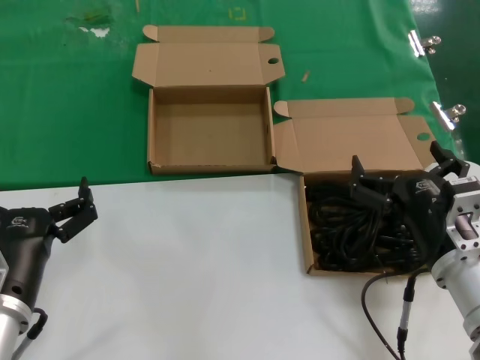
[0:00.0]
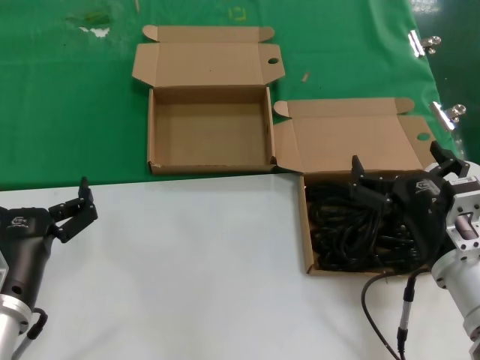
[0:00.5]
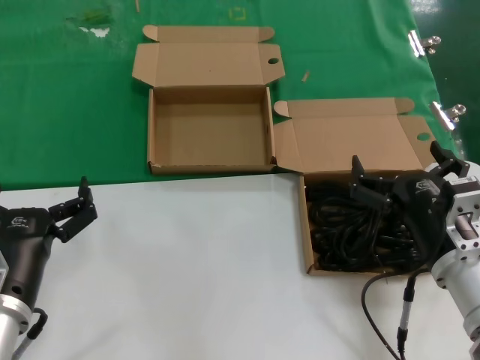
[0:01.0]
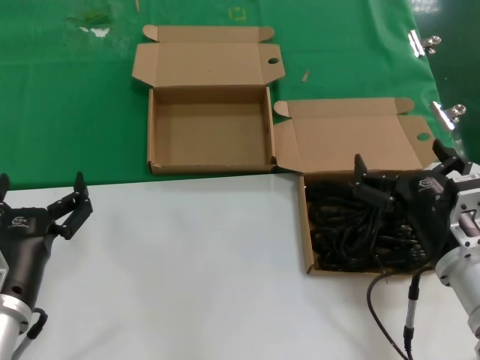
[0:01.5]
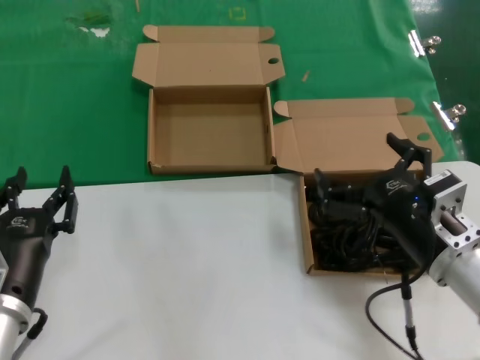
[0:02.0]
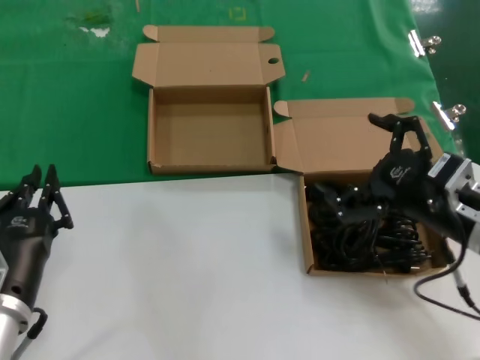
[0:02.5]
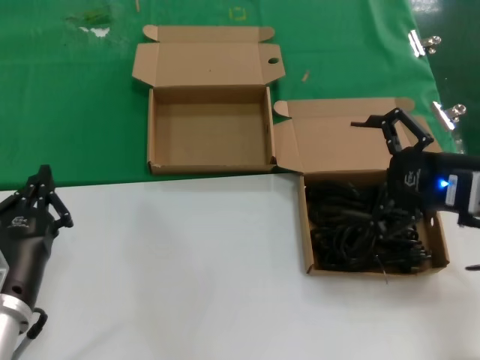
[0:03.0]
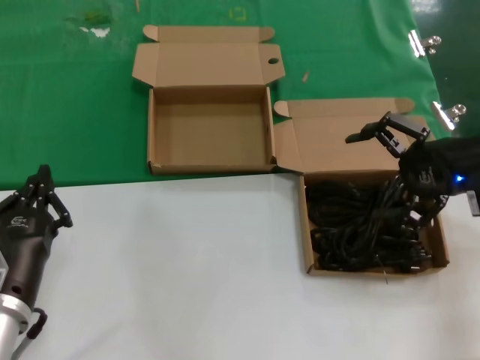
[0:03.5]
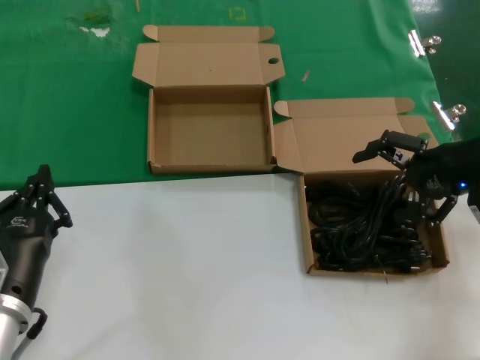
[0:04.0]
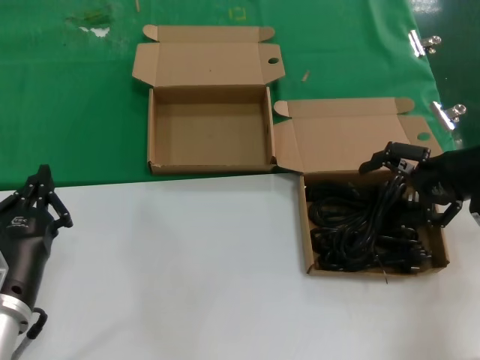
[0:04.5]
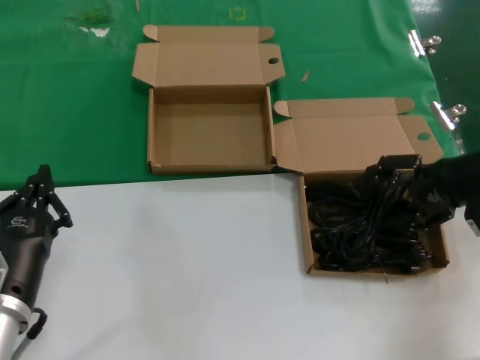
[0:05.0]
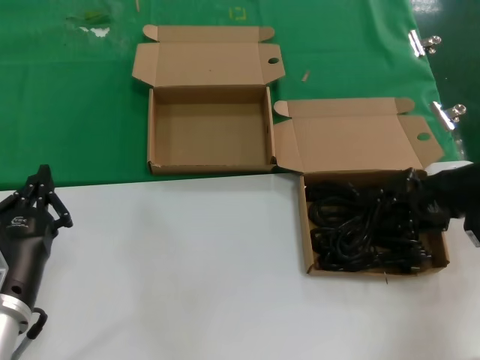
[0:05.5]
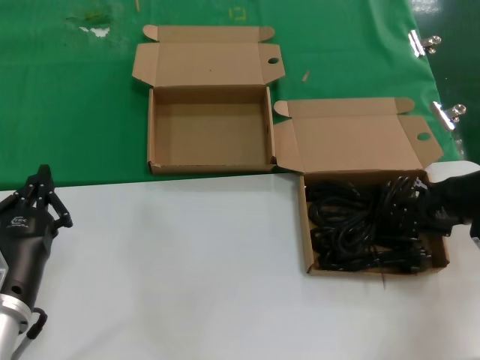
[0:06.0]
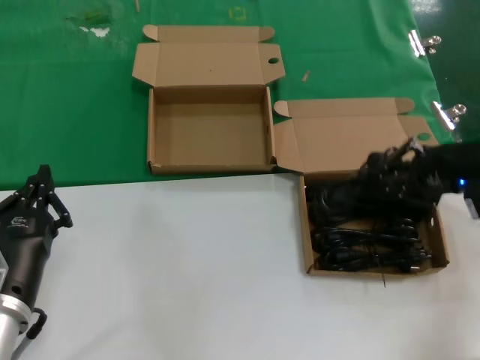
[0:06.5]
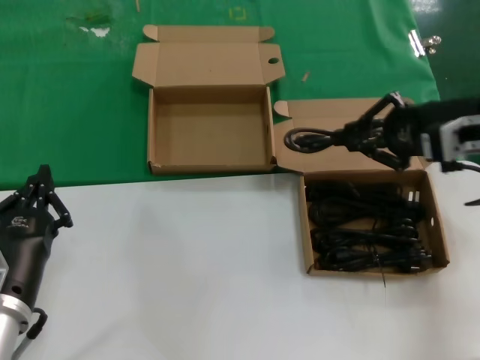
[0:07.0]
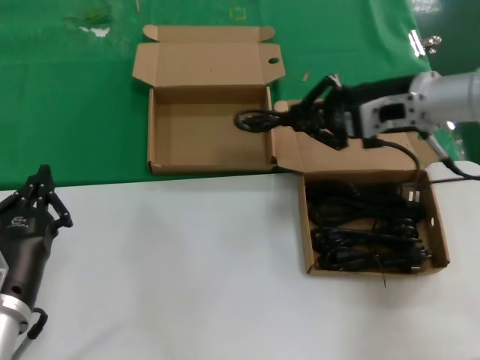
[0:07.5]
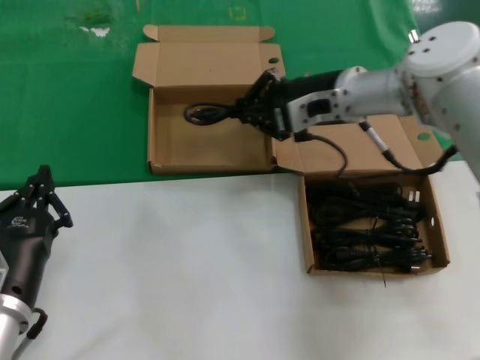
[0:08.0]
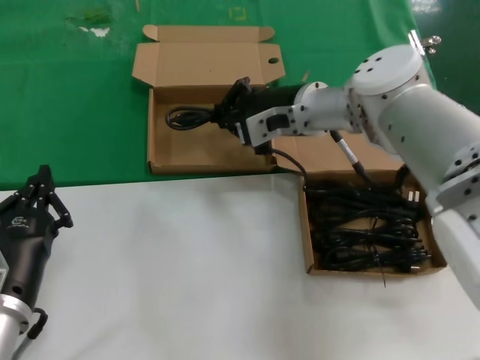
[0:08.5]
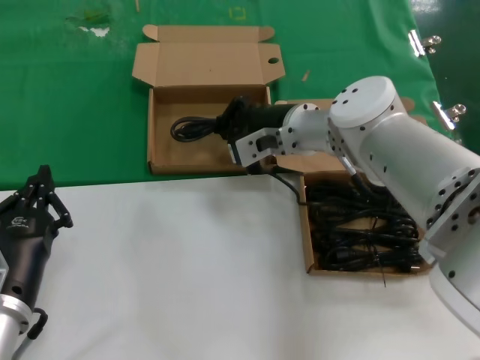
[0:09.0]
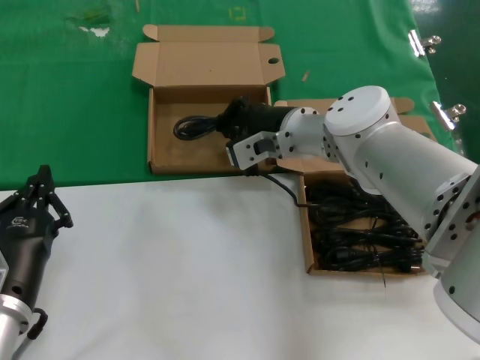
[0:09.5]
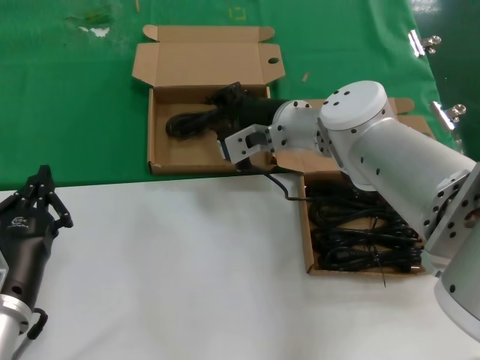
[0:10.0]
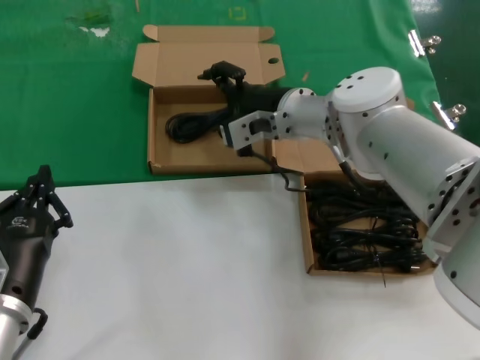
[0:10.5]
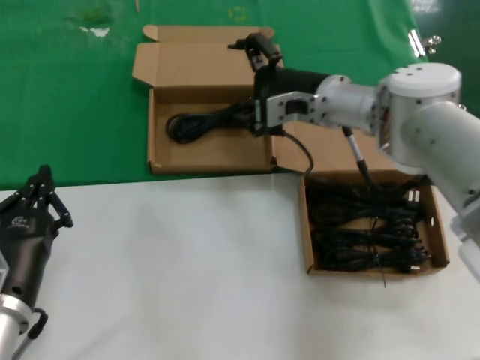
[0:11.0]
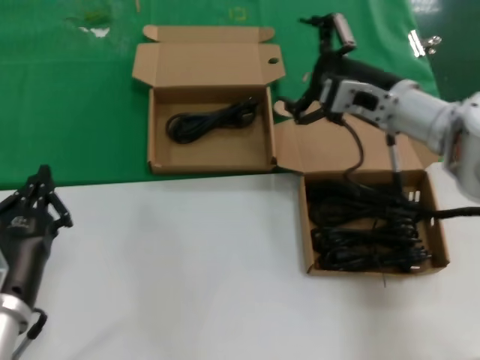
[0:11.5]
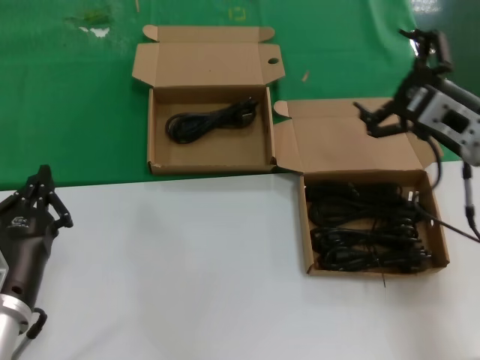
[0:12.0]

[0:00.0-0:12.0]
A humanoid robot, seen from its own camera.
Task of the whole recording: take the parts from the box containing them and put them into an empty box.
Step, 0.0 to 6.0 s: Grasp the data cable.
Step, 6.5 to 10.0 s: Place the data cable in the another box.
0.0 to 2.0 s: The hands move only a little.
2.0 to 4.0 s: The right hand travels to the right, forward and upward by approximately 25 cm.
4.0 to 6.0 s: The right hand goes some 5 cm downward.
6.0 to 8.0 s: The right hand moves to the left and forward, approximately 25 cm.
8.0 to 10.0 s: The right hand travels to the left and downward by about 10 cm.
10.0 to 12.0 s: The right hand moves to the right and backward, about 25 cm.

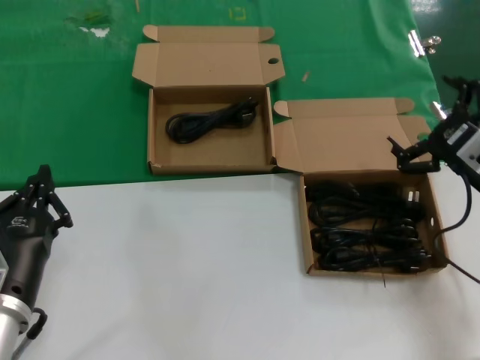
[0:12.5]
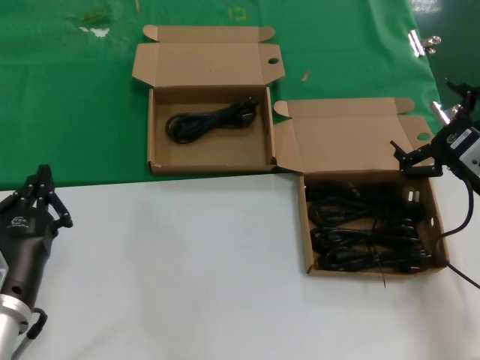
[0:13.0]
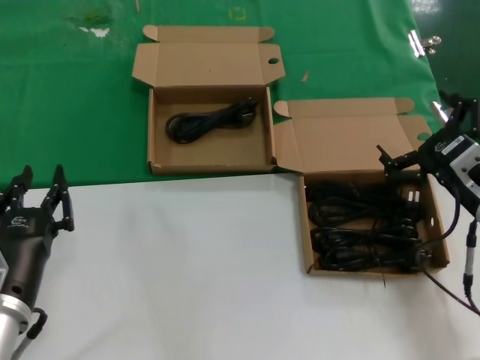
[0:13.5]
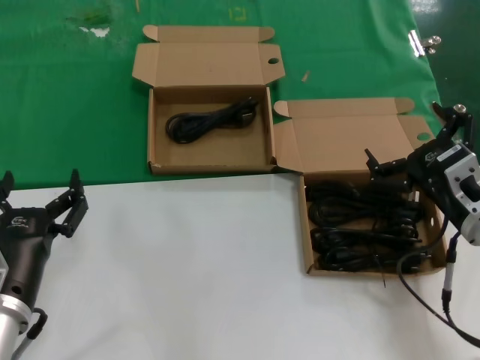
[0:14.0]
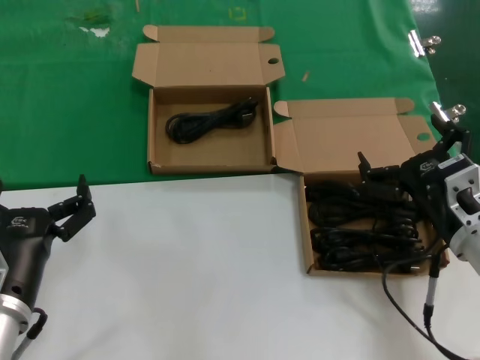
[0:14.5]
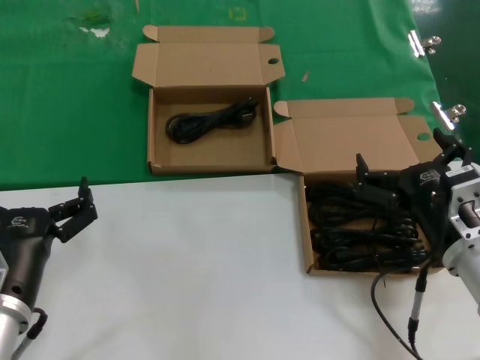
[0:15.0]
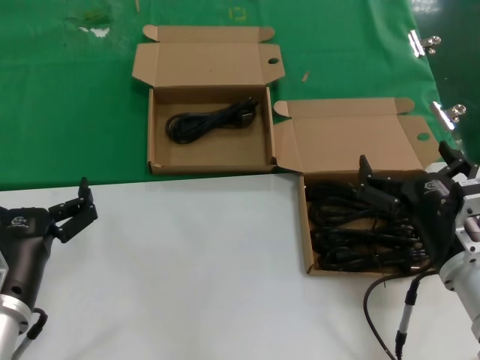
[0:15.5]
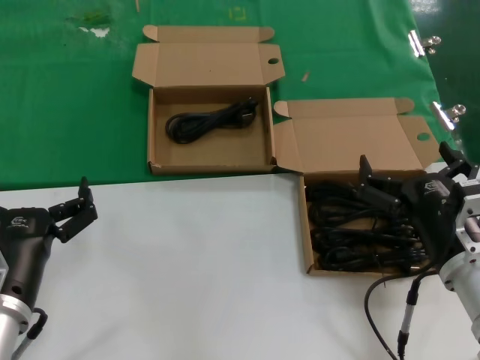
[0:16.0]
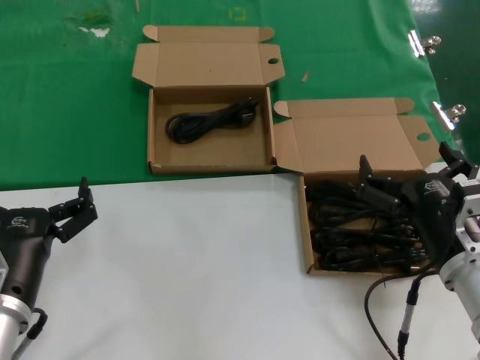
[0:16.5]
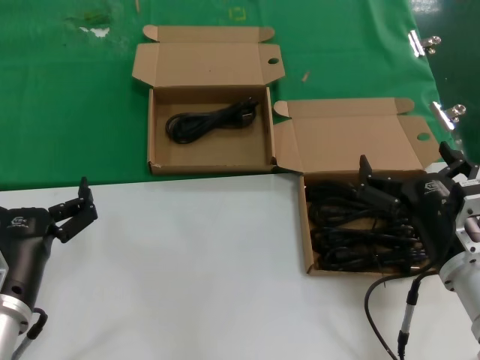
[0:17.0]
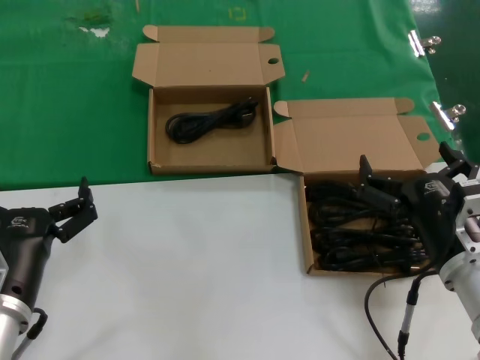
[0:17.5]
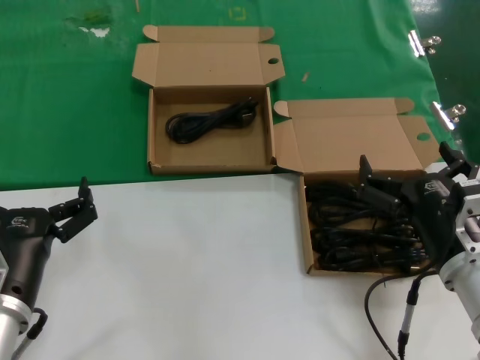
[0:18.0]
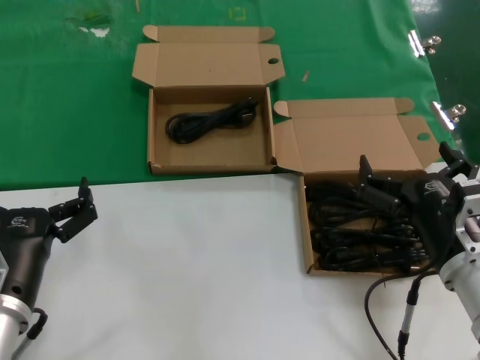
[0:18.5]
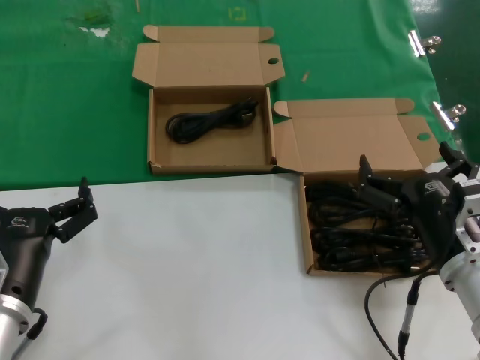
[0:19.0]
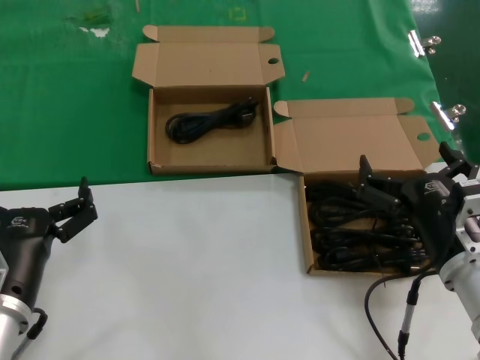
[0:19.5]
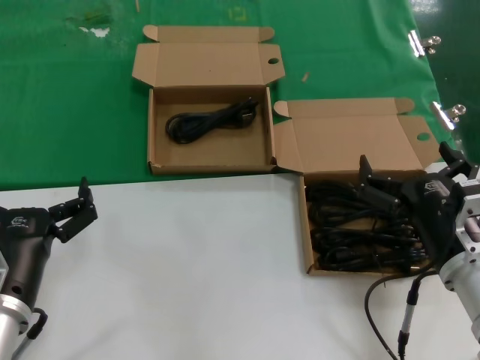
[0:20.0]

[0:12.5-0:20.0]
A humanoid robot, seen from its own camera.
Task of the whole recording: take the parts from the box containing them and put them into an empty box.
12.5 to 14.5 s: The right hand is displaced to the left and backward by roughly 10 cm.
14.5 to 16.5 s: The right hand moves about 5 cm.
16.5 to 20.0 s: Both hands stay put.

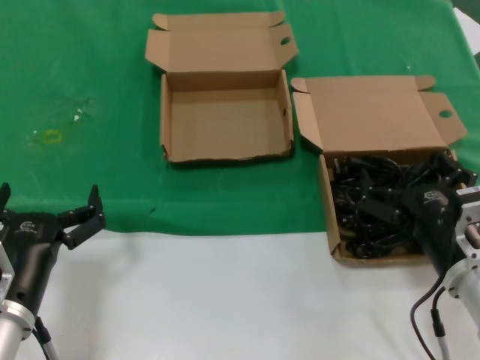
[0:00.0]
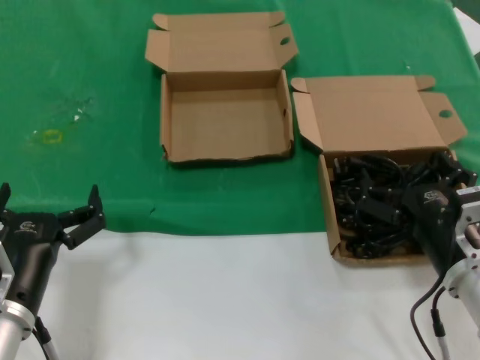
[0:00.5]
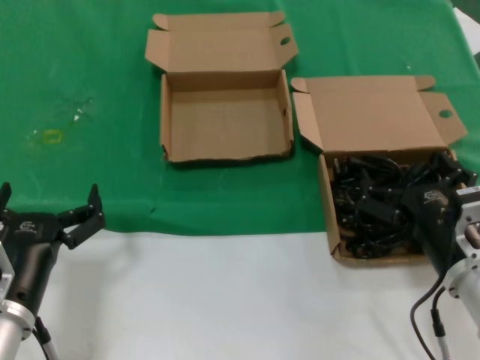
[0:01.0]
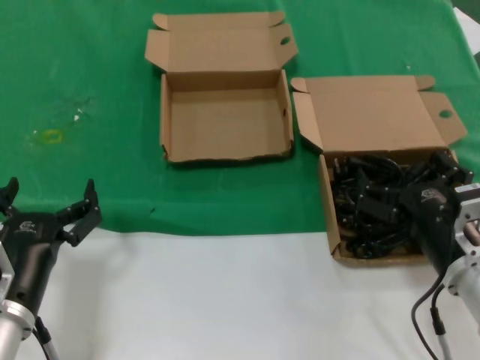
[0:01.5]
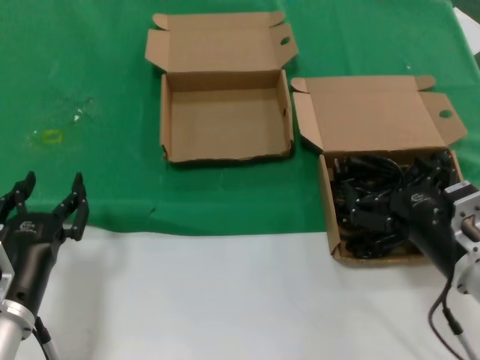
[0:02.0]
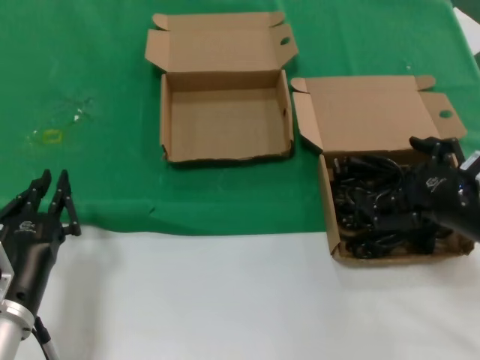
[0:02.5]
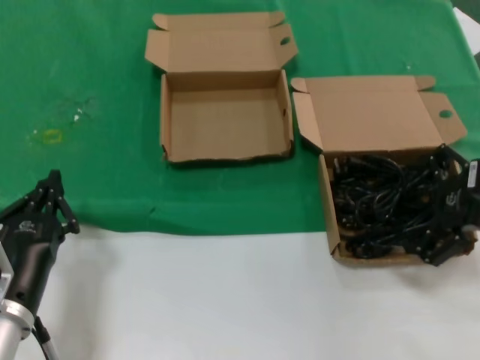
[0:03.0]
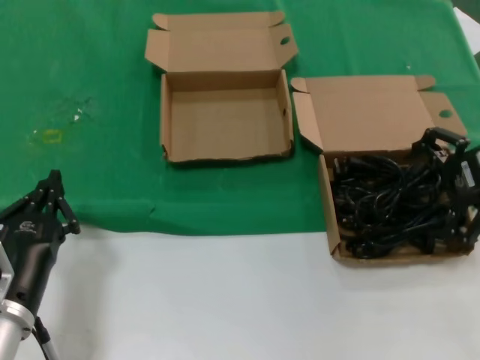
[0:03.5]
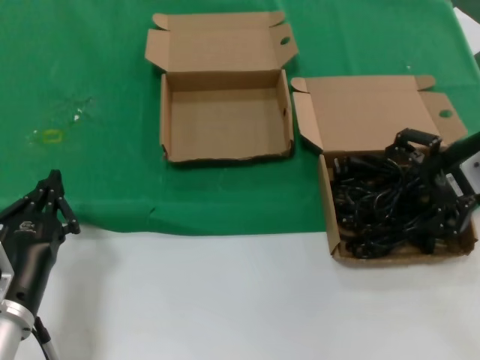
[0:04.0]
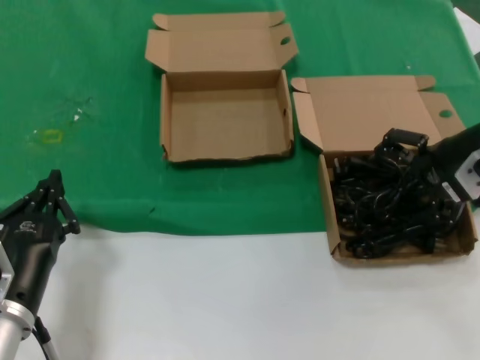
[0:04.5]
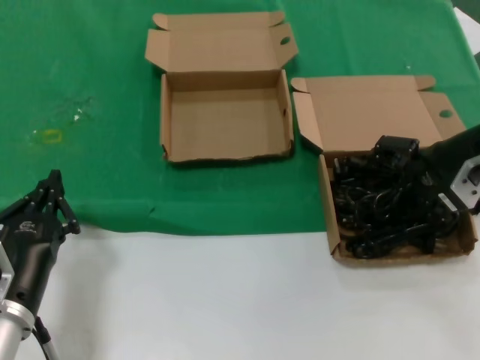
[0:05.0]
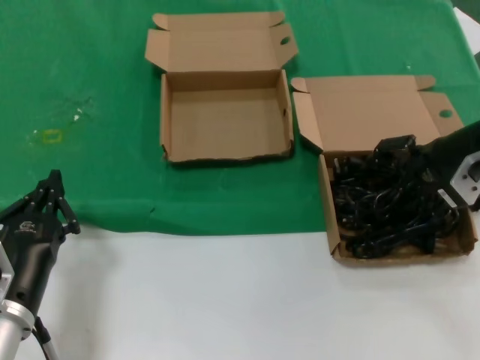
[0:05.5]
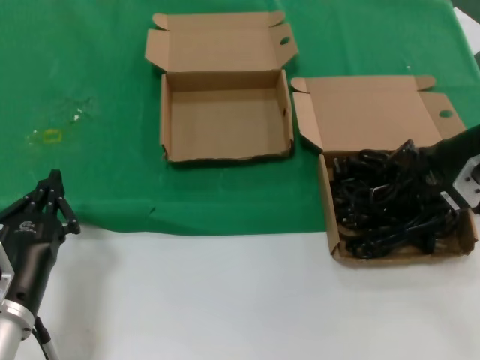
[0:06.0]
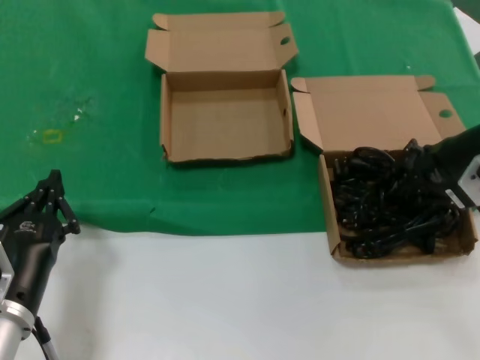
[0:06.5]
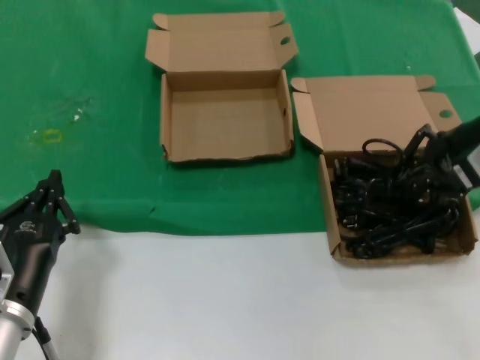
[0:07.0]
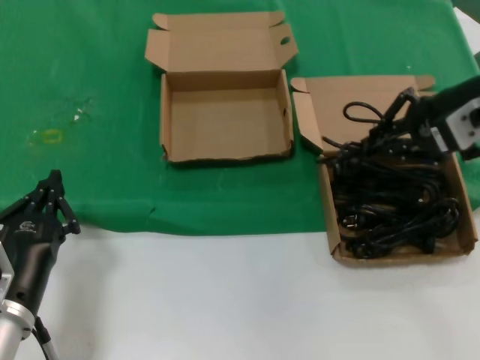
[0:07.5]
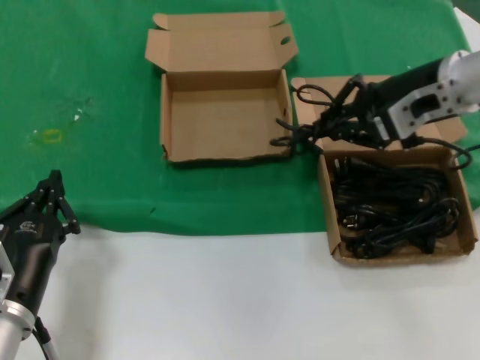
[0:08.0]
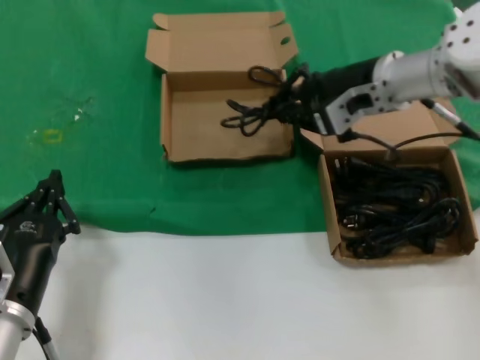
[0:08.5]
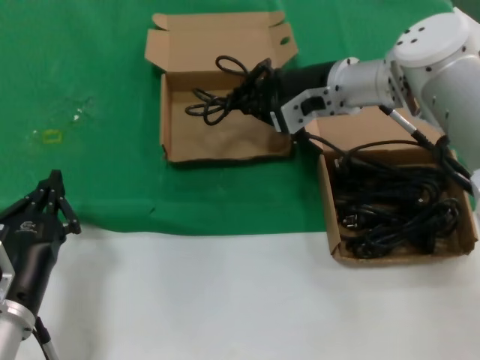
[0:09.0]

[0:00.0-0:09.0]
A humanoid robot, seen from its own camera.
Task of the whole recording: take the parts from the box containing them and put them into an empty box.
Step, 0.0 to 6.0 s: Grasp the data cable.
0.0 to 2.0 s: The hands move only a little.
2.0 to 4.5 s: The right hand moves upward, forward and to the right, approximately 25 cm.
4.5 to 7.0 s: The hands move only a little.
7.0 to 9.0 s: The right hand travels to the left and forward by roughly 20 cm.
